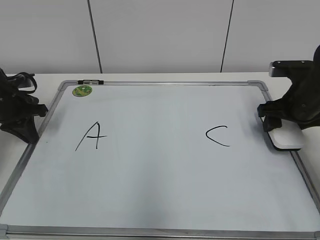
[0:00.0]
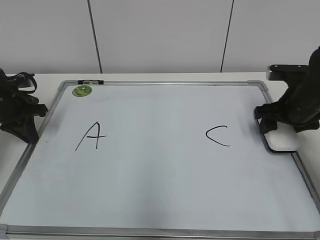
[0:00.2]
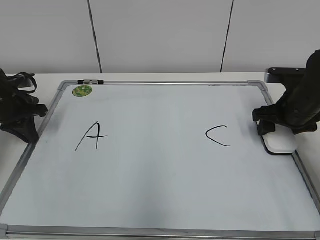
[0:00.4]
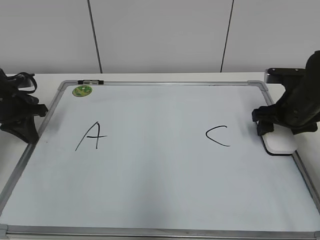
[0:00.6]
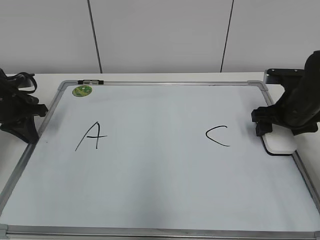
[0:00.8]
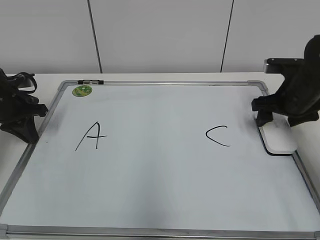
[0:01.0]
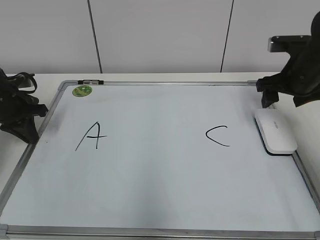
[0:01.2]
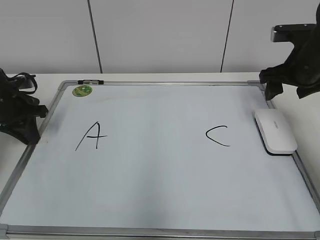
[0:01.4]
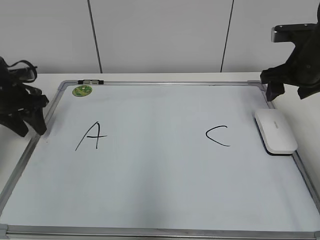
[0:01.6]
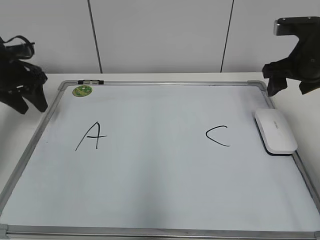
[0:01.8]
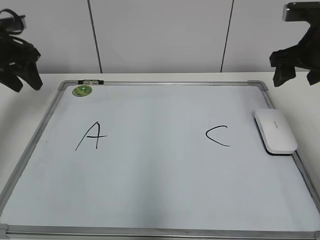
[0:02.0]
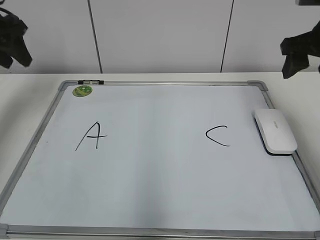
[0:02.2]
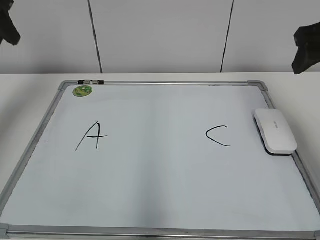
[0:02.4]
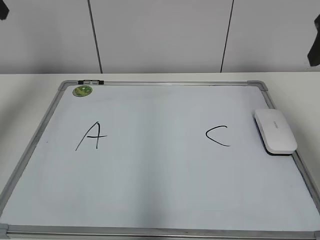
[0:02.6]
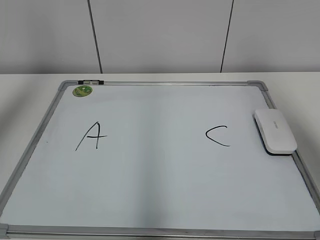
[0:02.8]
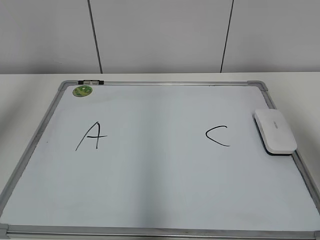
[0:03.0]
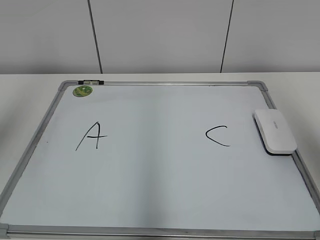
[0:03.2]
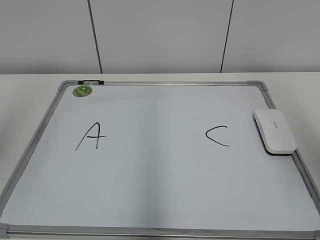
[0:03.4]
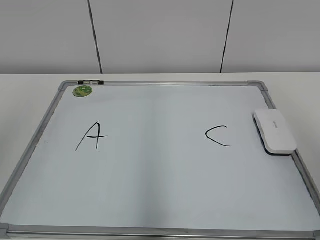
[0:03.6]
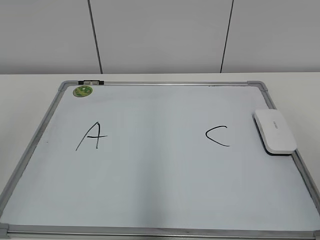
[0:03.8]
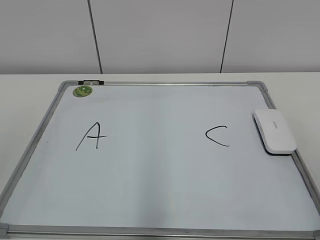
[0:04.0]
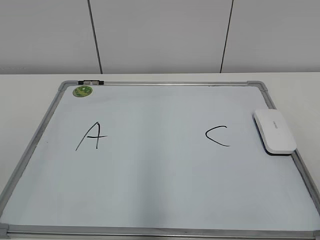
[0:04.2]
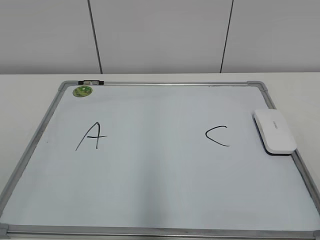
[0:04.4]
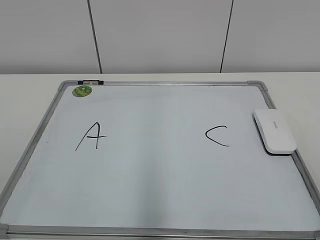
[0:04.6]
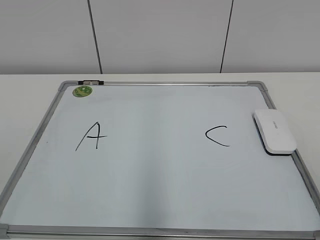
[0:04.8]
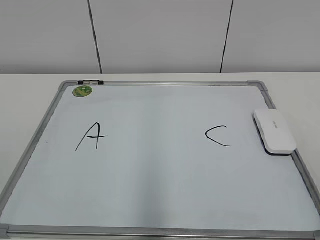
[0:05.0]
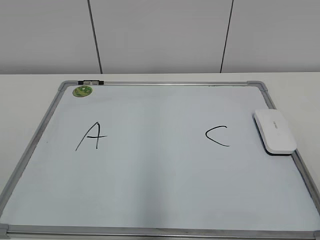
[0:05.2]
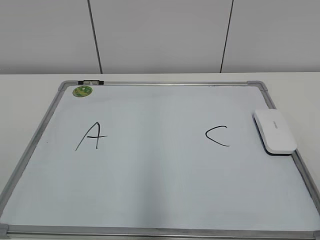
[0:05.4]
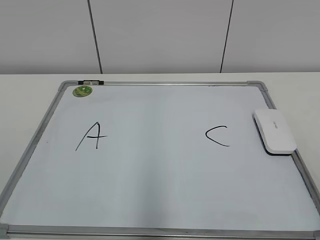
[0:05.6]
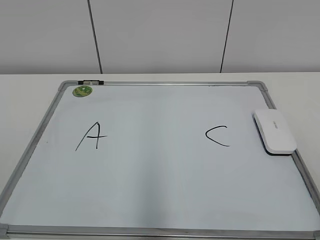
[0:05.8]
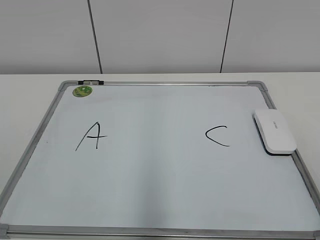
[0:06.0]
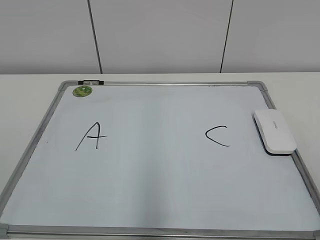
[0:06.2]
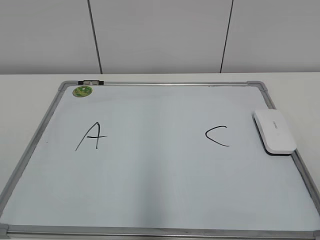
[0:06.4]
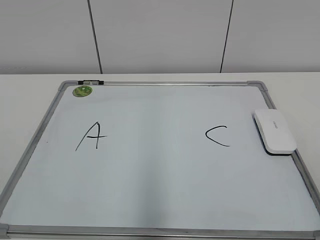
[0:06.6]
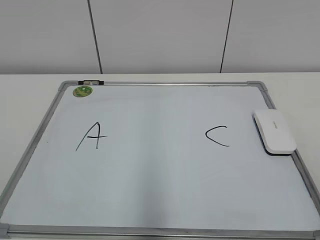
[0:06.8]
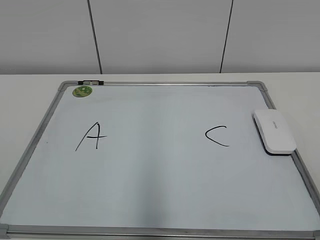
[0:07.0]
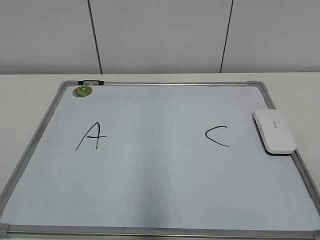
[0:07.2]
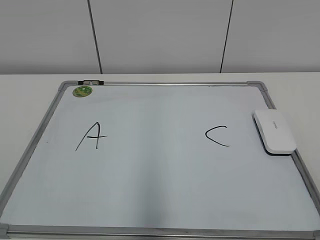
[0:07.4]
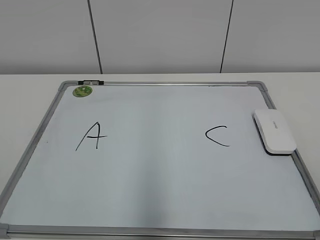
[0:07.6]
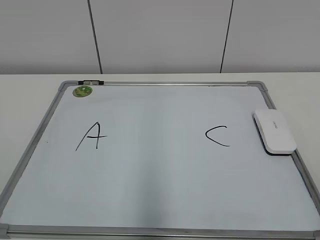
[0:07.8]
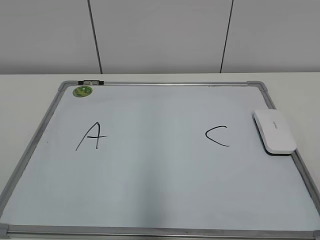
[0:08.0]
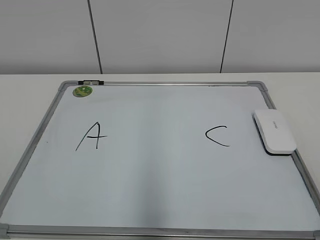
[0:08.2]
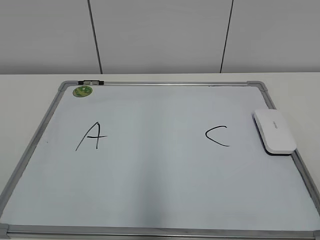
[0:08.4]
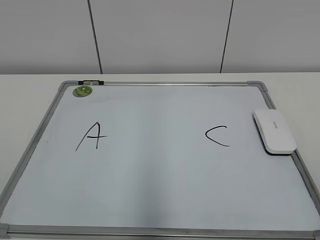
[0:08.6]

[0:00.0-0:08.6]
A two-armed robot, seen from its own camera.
Task of the whole recording: pick up the eraser on the blackboard and erase the letter "B".
0:00.0 to 0:01.4: The right gripper travels upward by roughly 5 cm.
0:01.4 to 0:02.8: The left gripper shifts about 30 cm upward, and opens up. Meanwhile the right gripper heads upward and backward, covering about 20 cm.
0:02.8 to 0:04.4: The right gripper goes approximately 25 cm backward, while the left gripper travels backward and downward by some 30 cm.
0:07.2 to 0:08.6: Neither gripper changes place.

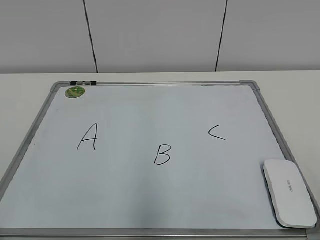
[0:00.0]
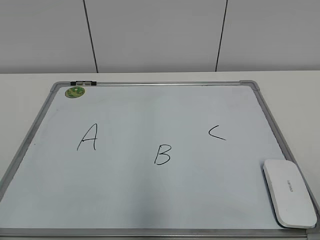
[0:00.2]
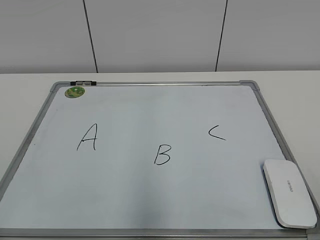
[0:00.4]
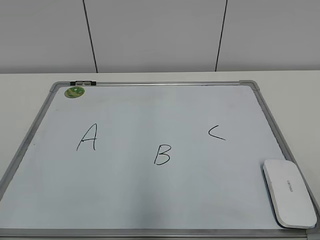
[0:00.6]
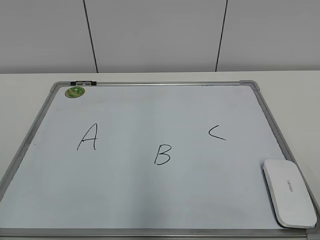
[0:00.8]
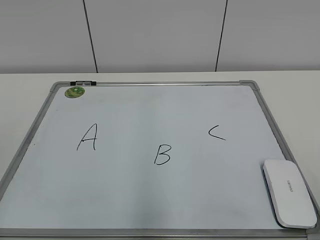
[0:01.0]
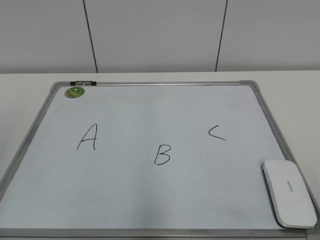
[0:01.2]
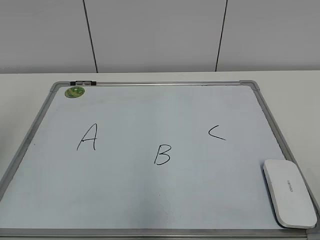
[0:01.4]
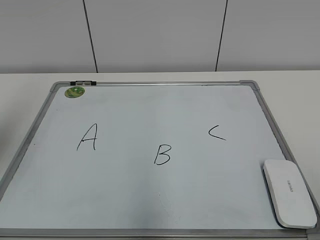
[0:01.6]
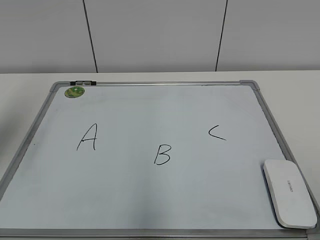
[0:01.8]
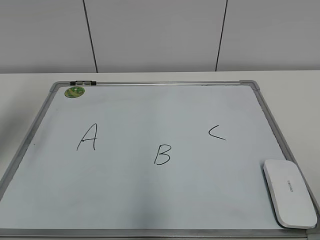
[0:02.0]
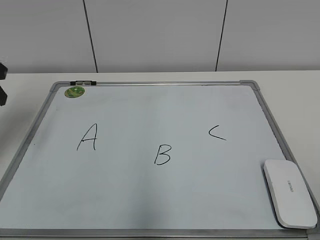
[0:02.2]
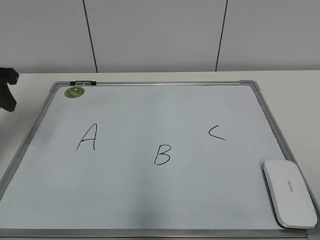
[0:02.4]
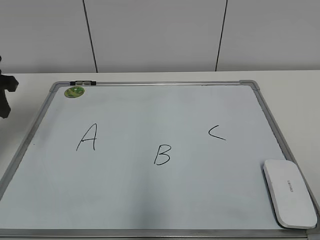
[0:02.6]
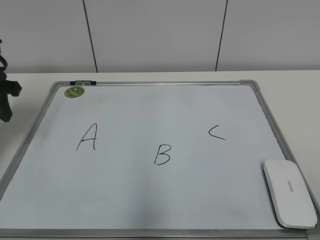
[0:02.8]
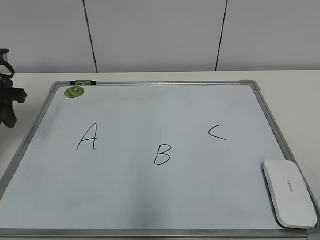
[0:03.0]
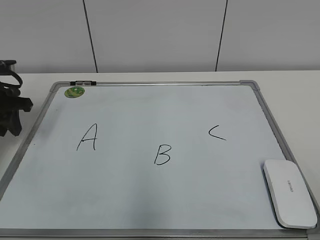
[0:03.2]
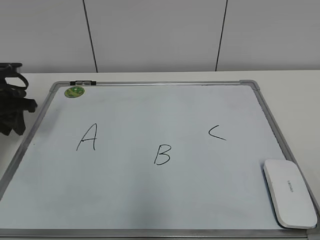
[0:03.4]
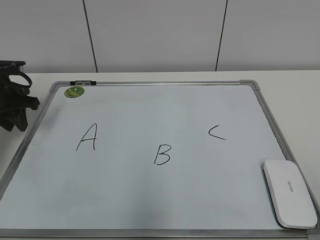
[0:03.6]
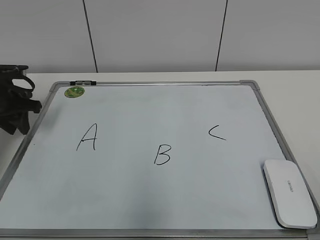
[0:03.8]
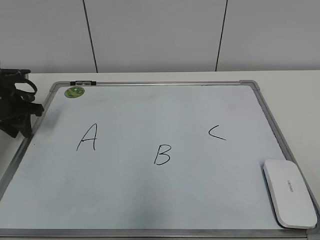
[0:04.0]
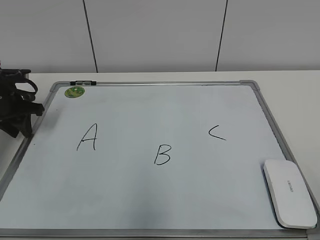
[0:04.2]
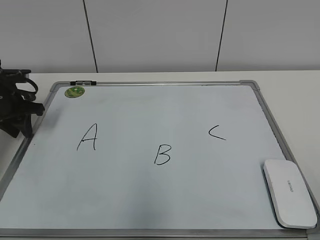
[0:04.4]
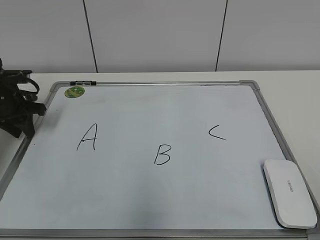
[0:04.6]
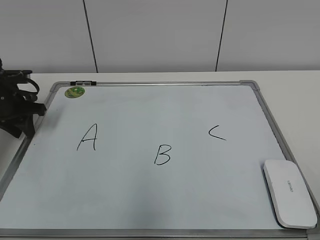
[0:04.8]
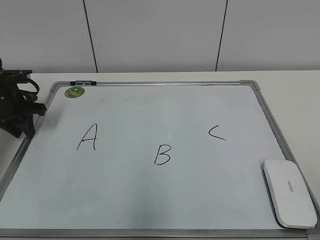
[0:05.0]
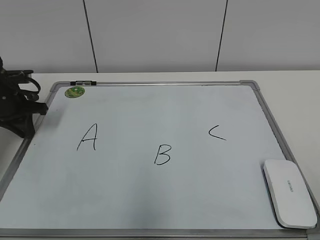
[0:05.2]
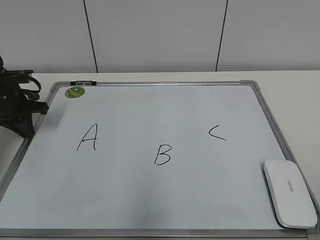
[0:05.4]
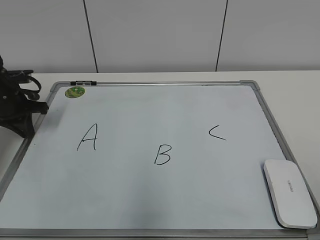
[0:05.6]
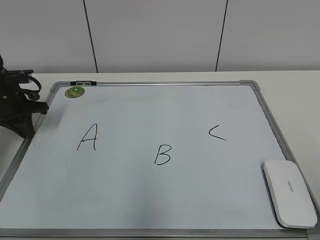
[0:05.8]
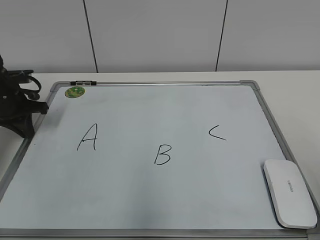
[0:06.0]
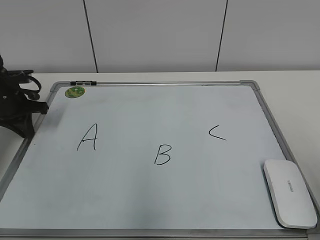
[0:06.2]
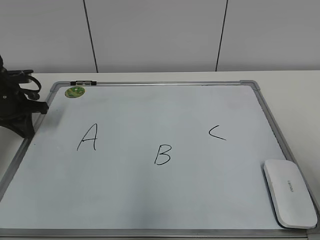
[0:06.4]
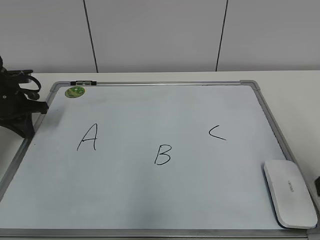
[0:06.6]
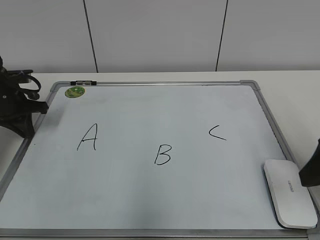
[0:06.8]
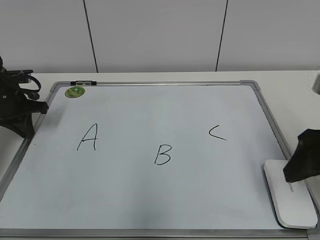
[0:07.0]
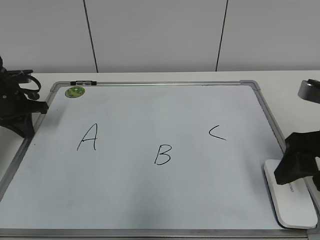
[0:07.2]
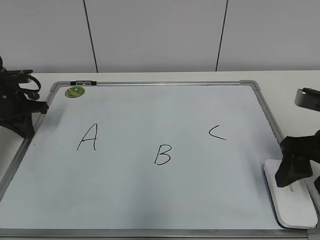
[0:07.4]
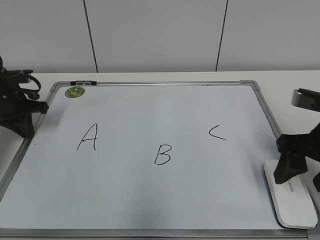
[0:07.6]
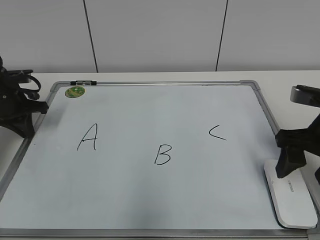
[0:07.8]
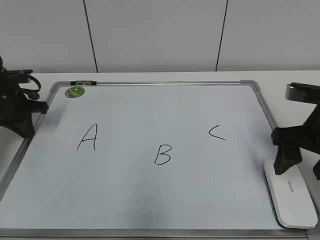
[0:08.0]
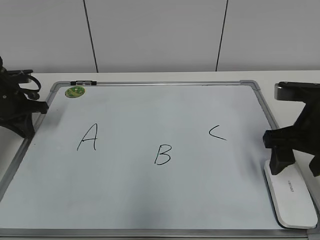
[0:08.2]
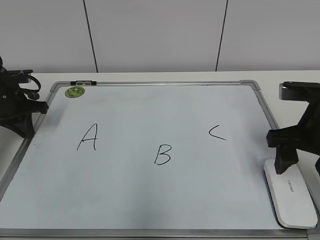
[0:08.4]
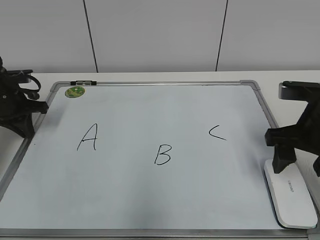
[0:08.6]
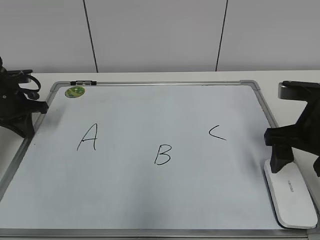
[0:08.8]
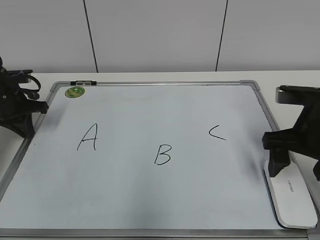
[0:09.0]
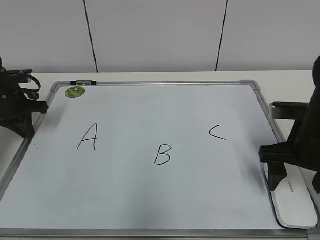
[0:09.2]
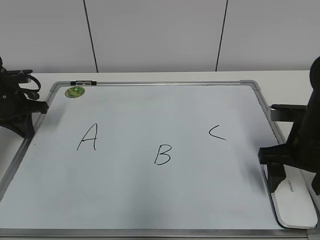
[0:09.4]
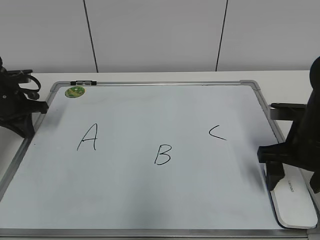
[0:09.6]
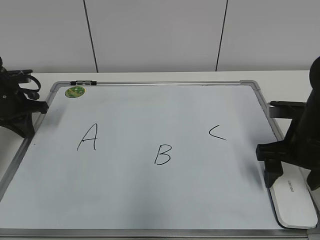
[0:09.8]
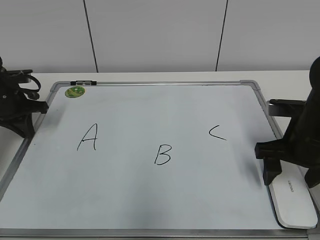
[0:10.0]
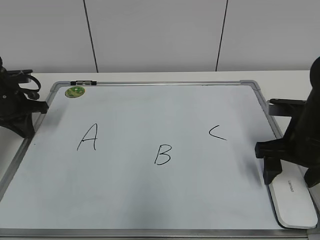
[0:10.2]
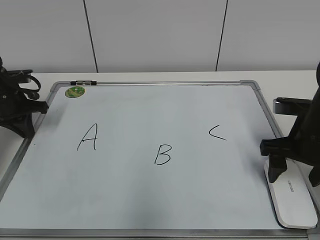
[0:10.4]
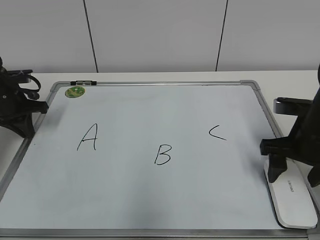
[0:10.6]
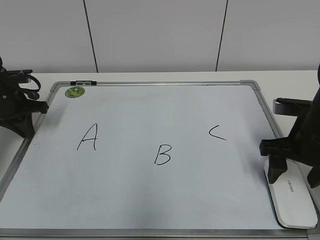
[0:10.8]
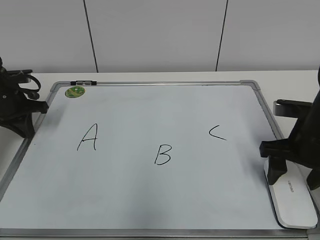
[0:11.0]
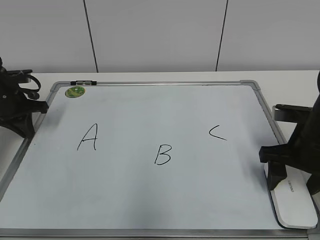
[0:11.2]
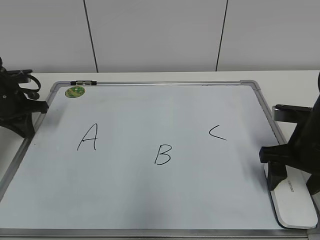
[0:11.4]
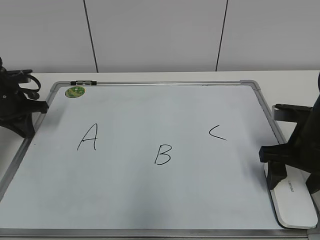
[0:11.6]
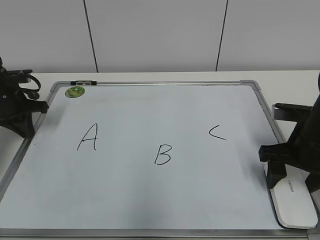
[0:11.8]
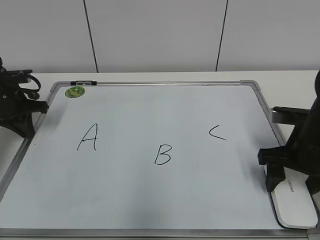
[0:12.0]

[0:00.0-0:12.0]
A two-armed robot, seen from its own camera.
Task of the whole recording: pick up the eraser on the blackboard and erase the letter "B".
Step, 0:00.0 to 0:05.0: Hold the drawing board steady with your left hand.
0:01.6 to 0:03.0: The left gripper travels forward and downward by approximately 20 cm.
0:03.0 to 0:04.4: The left gripper travels downward by approximately 5 cm.
0:04.4 to 0:06.0: The left gripper closes its fingers.
0:06.0 to 0:07.6: The right gripper travels forward and downward by roughly 20 cm.
0:07.6 to 0:09.0: The right gripper opens.
0:09.0 to 0:12.0: There are only small adjustments of the grippers.

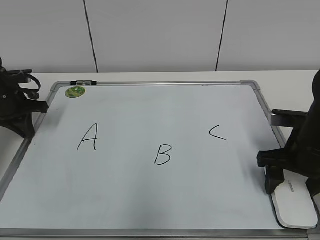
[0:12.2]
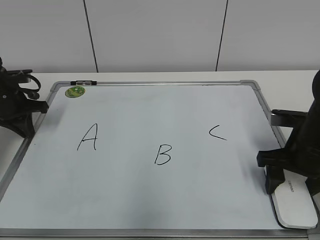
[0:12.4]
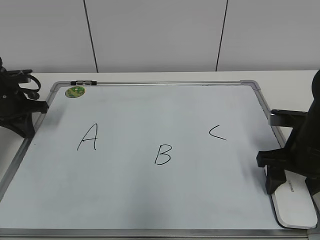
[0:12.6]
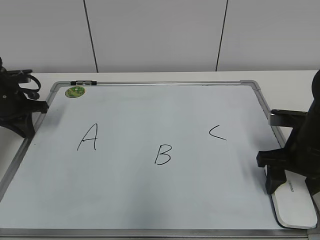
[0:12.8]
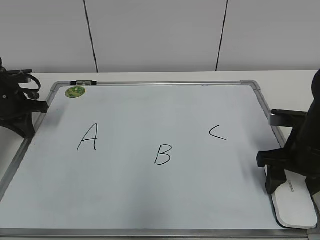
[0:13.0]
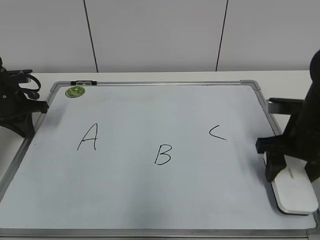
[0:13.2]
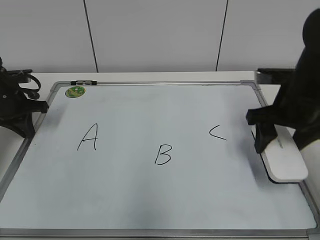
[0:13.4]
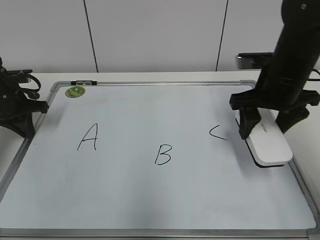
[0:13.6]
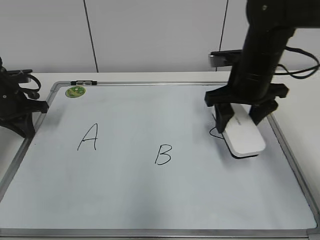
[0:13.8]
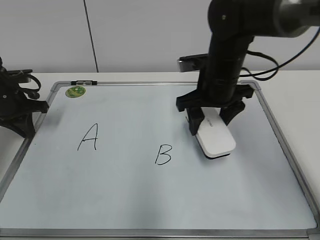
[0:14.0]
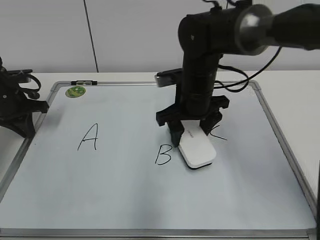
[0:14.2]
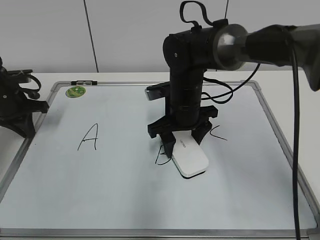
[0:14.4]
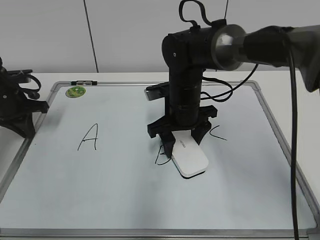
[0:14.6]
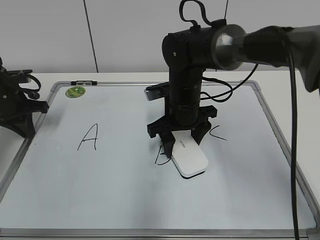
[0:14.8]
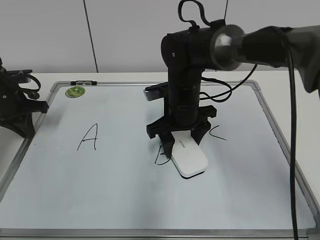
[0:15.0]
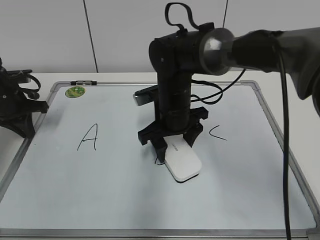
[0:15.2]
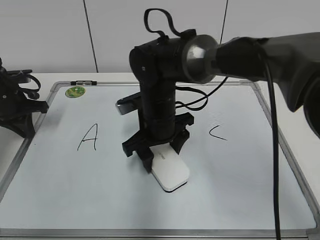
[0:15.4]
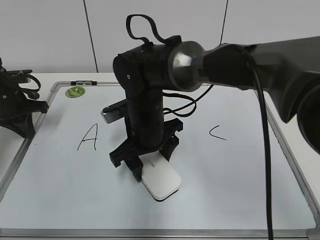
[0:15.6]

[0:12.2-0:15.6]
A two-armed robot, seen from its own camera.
Task of the whole recording: pick up the eraser on the blackboard and erase the letter "B".
0:12.2 to 0:13.8: The right gripper goes roughly 15 cm forward, to the left and upward, and closes.
0:13.8 to 0:15.6: The right gripper goes some 20 cm to the left and downward.
